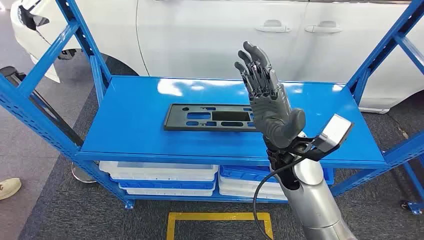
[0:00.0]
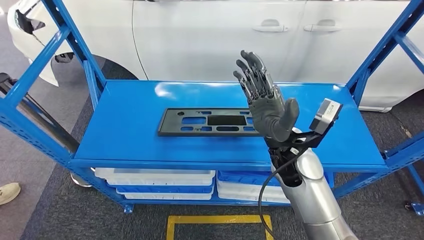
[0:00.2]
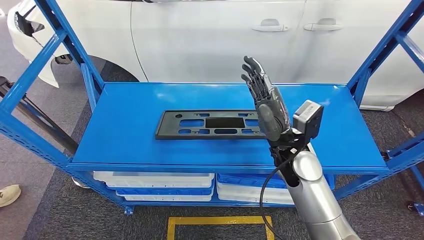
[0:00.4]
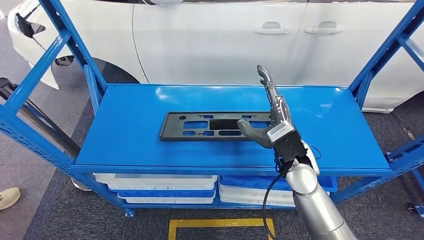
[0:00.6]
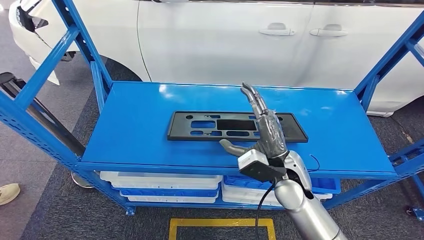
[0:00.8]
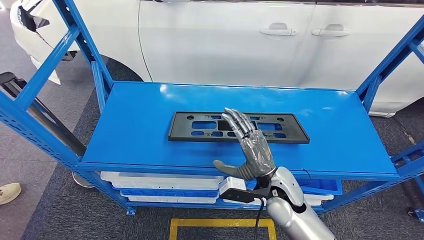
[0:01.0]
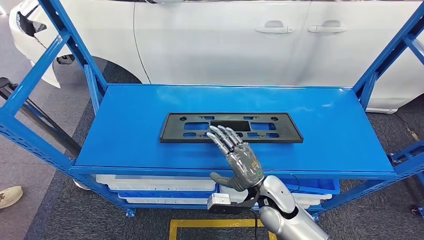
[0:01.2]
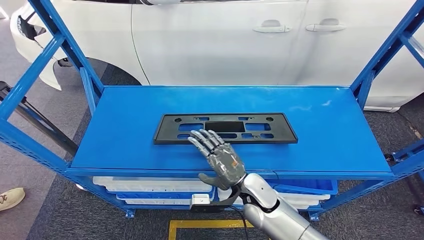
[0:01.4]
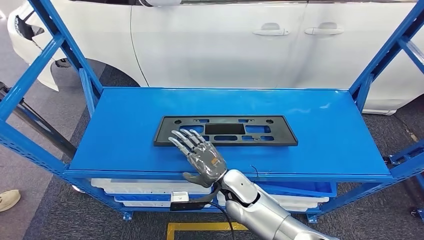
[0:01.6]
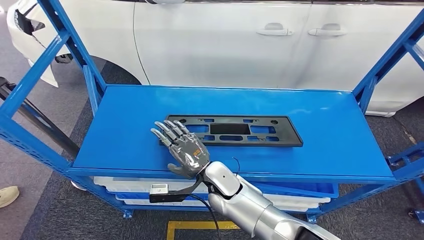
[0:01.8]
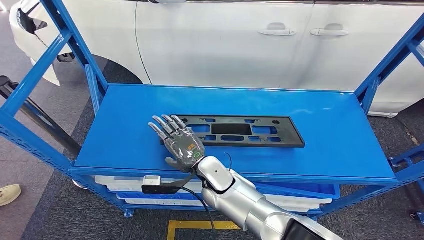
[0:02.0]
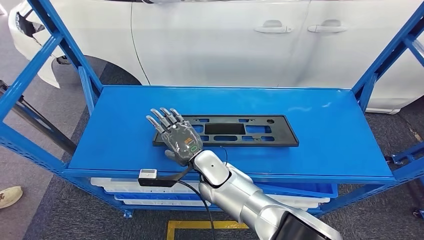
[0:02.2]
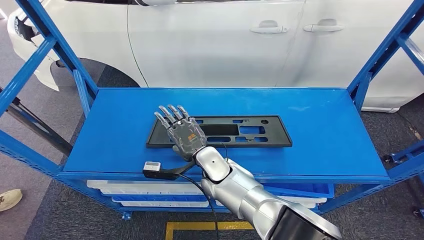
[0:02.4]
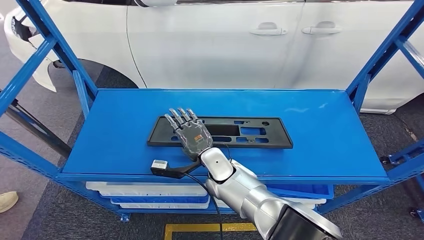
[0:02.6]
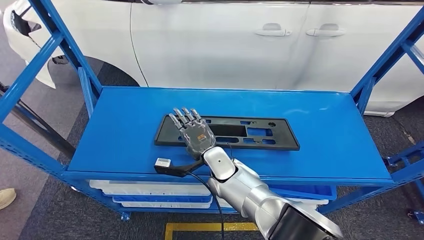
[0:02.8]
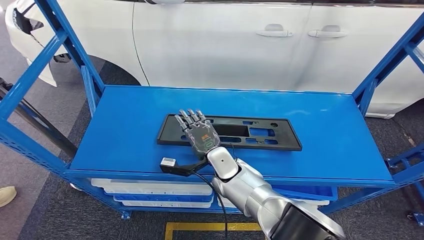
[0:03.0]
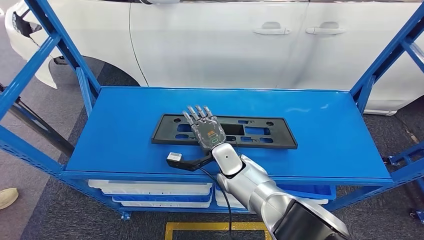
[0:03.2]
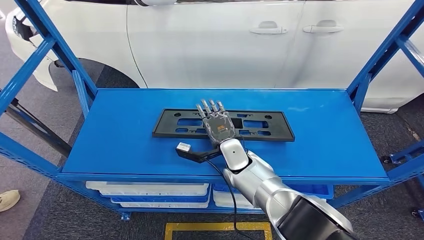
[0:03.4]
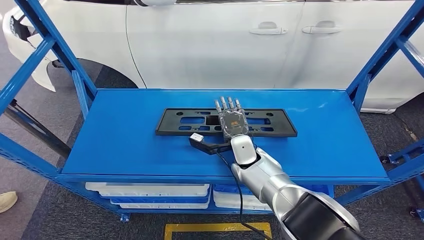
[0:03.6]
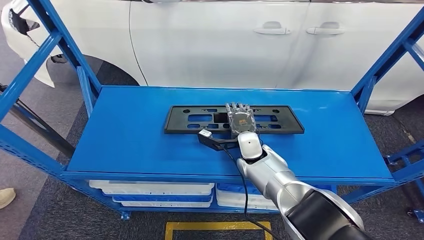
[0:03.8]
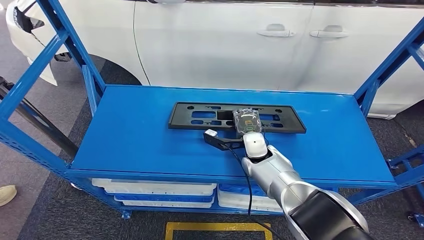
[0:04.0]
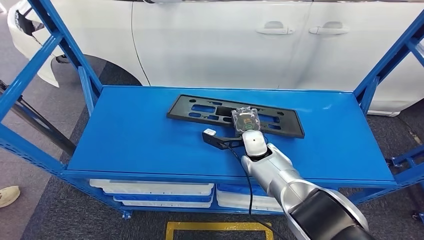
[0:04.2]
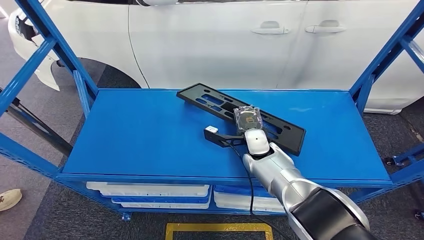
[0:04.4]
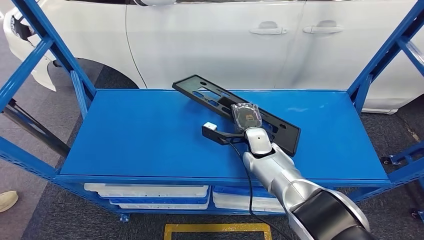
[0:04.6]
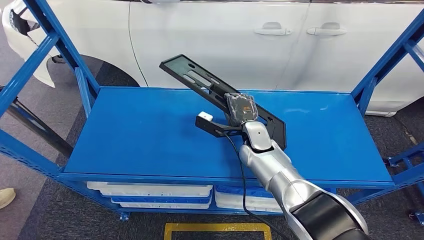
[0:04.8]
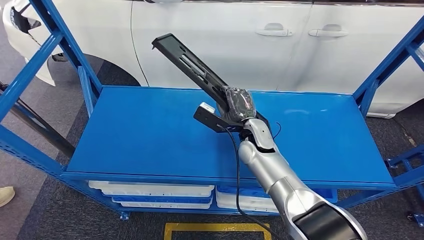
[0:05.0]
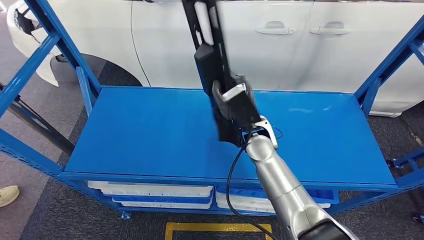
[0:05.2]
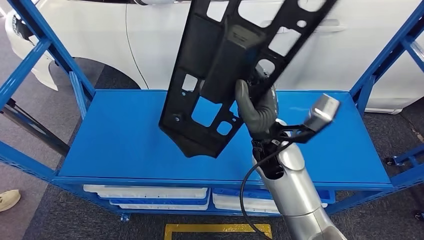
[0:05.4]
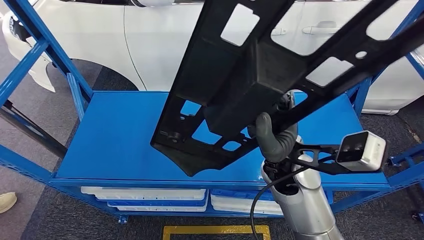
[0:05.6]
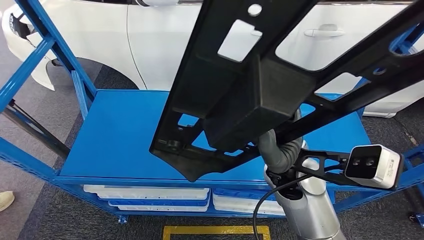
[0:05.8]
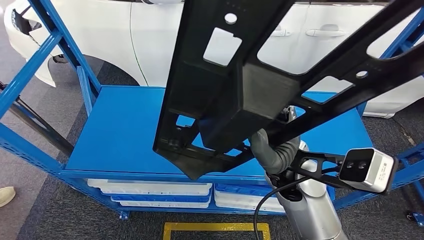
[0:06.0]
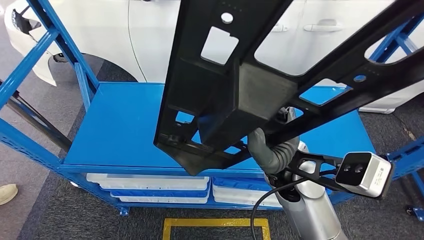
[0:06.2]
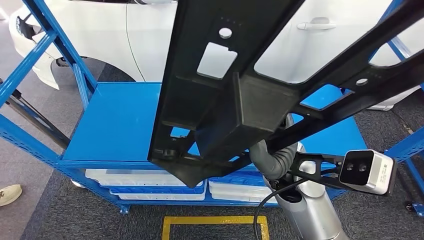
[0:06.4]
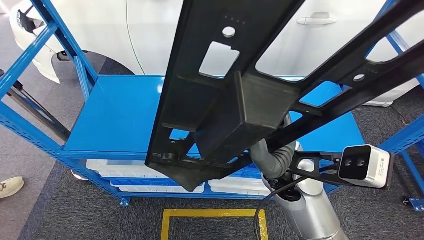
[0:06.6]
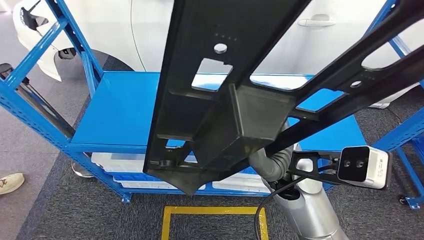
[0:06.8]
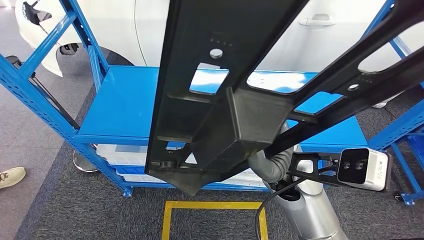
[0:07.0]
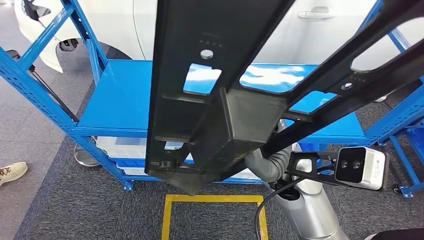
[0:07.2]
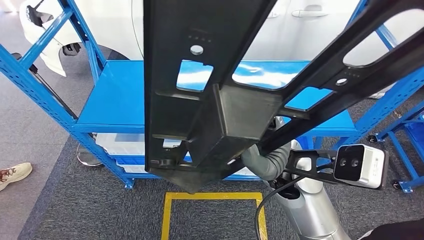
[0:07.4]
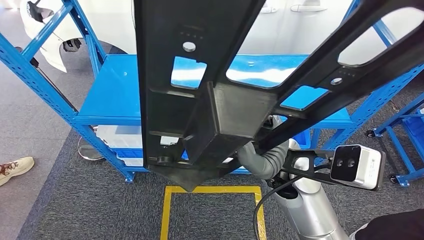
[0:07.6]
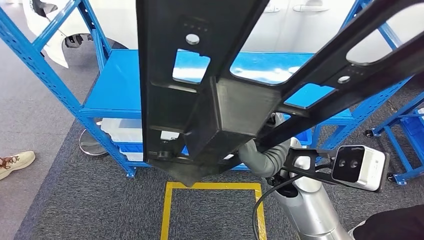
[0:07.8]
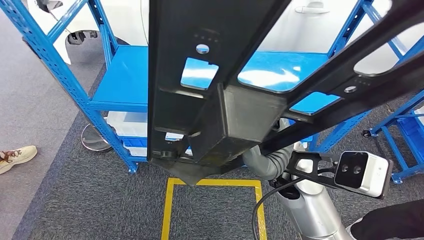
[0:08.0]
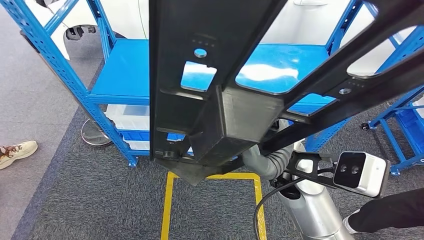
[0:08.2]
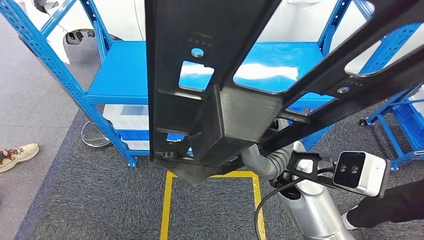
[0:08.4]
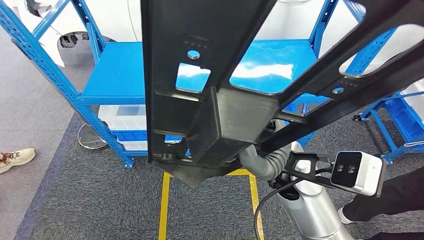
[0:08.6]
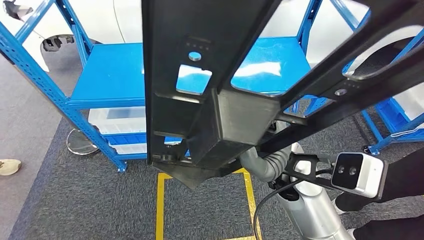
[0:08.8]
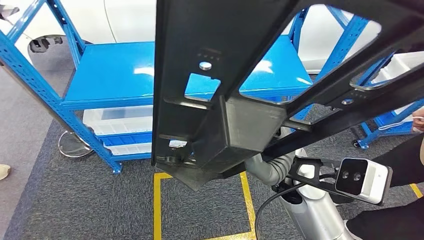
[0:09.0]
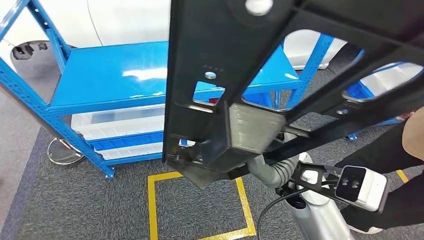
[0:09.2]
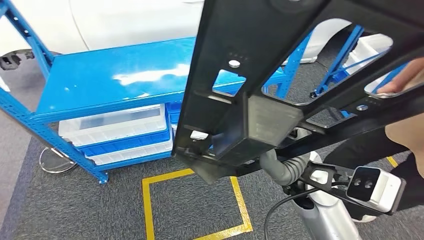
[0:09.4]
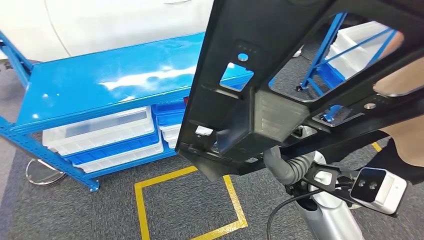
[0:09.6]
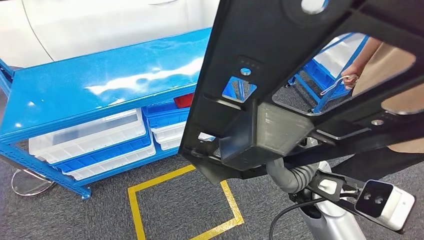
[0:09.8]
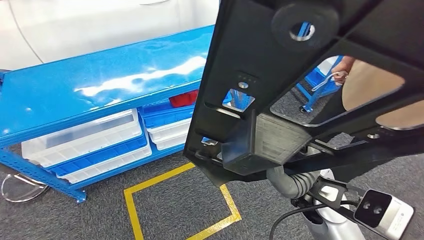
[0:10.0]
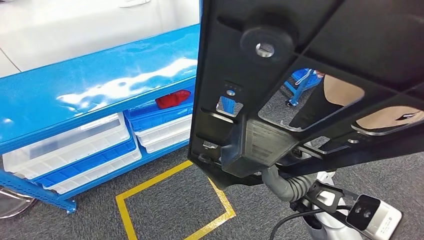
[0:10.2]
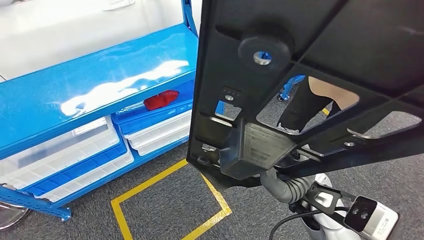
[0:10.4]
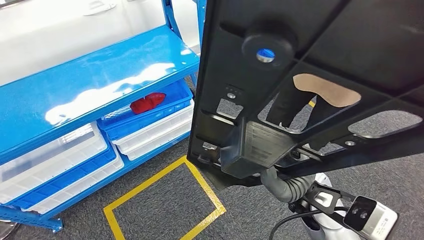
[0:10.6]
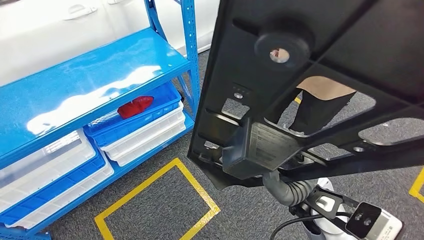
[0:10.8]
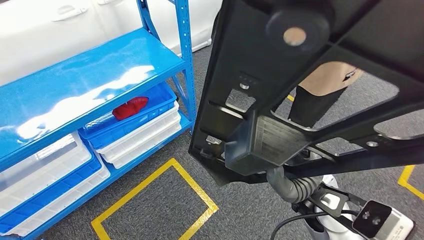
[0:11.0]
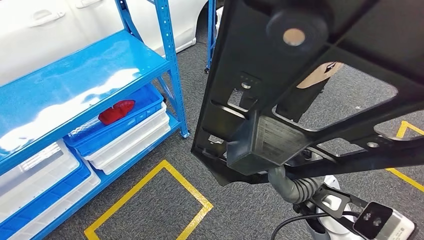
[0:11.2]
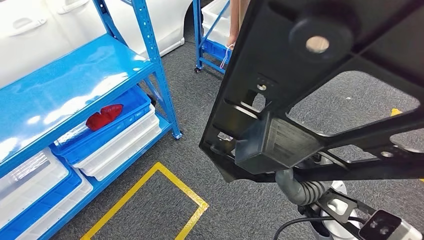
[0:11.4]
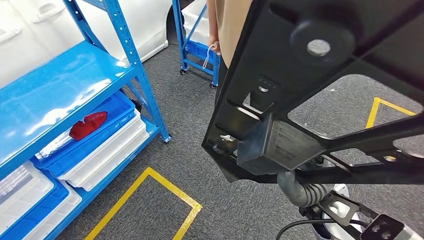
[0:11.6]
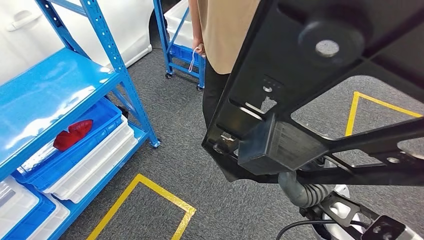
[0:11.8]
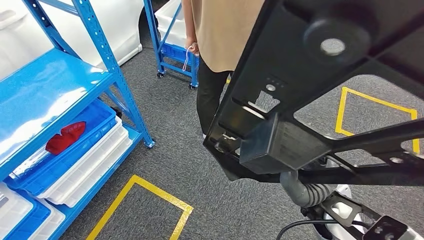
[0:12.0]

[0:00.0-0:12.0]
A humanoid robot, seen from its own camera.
Step, 0:00.0 to 0:06.4: Pick up the small component from the shelf.

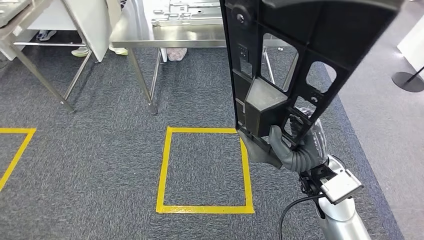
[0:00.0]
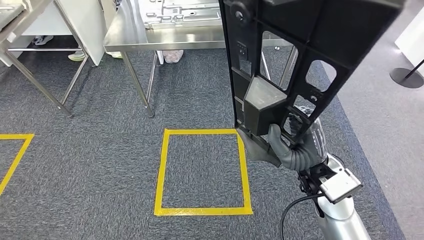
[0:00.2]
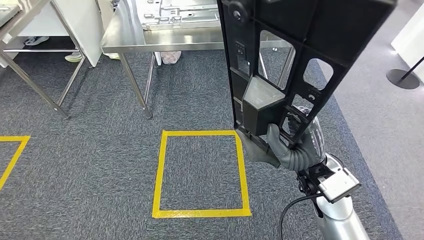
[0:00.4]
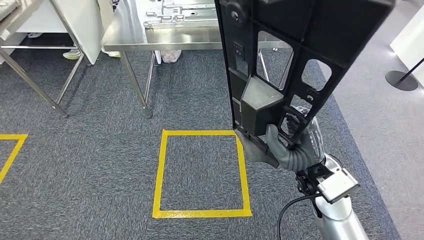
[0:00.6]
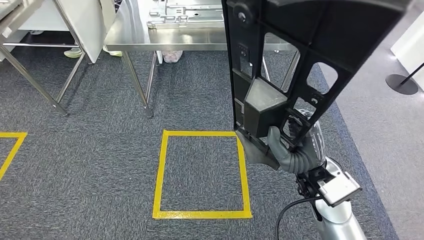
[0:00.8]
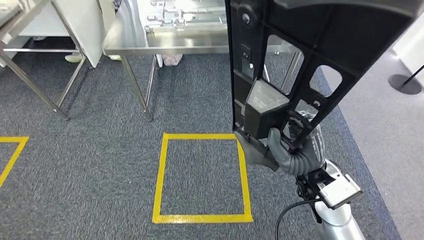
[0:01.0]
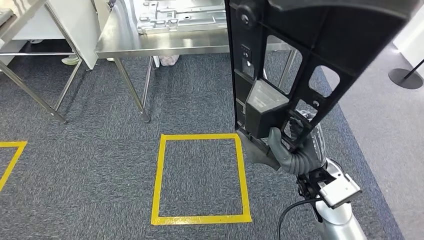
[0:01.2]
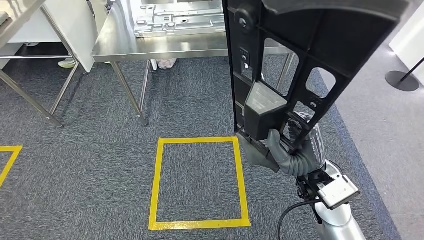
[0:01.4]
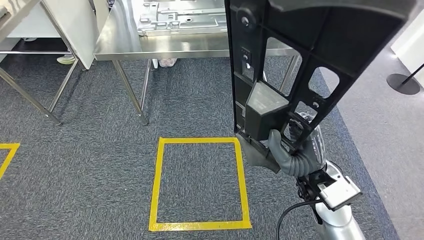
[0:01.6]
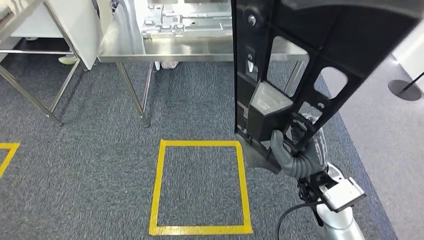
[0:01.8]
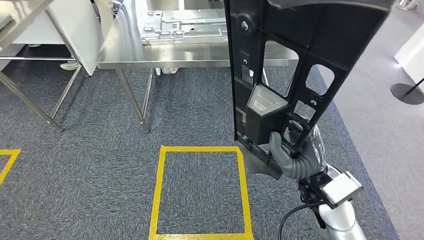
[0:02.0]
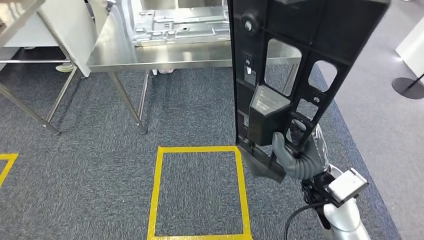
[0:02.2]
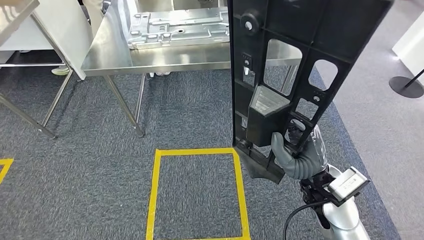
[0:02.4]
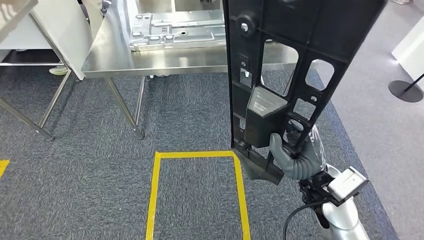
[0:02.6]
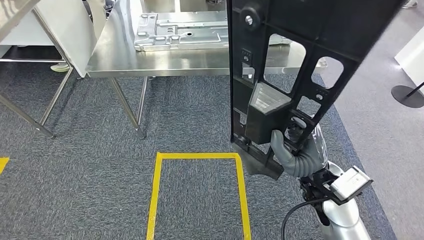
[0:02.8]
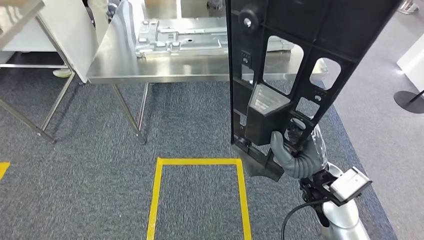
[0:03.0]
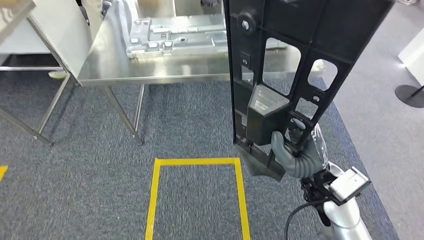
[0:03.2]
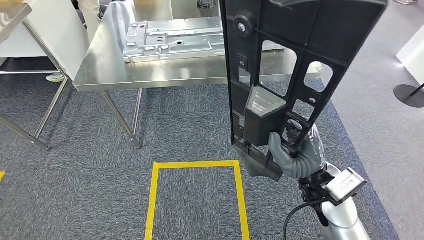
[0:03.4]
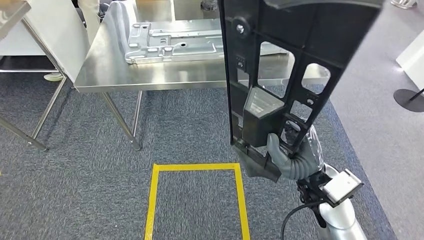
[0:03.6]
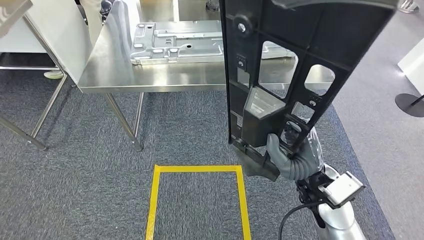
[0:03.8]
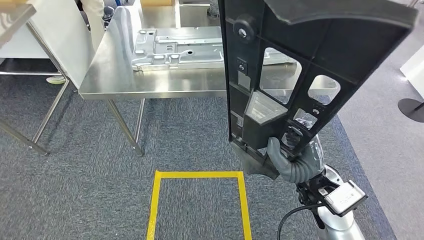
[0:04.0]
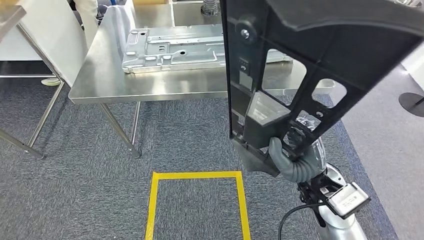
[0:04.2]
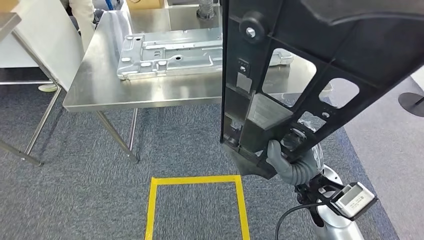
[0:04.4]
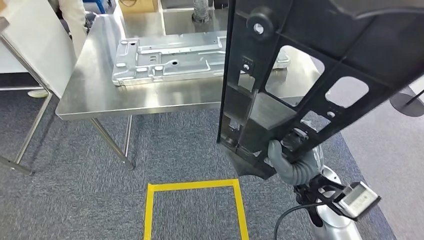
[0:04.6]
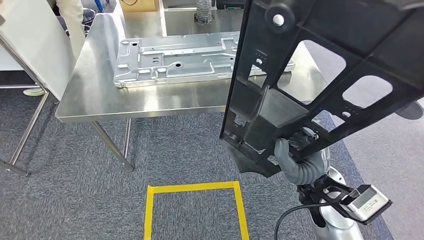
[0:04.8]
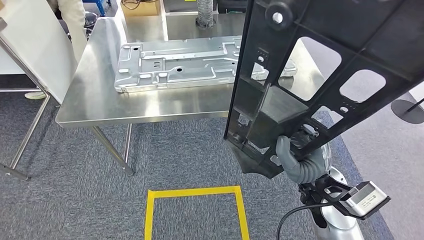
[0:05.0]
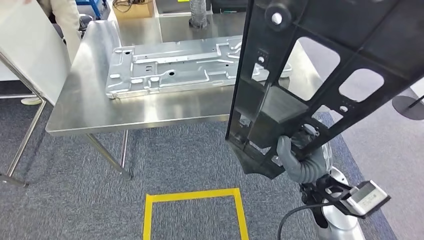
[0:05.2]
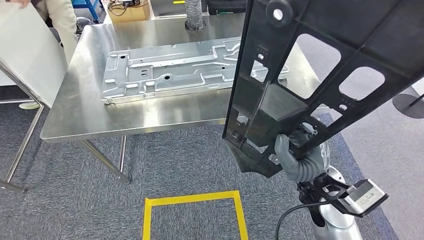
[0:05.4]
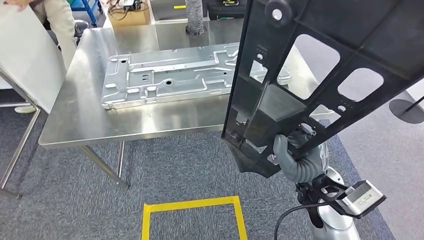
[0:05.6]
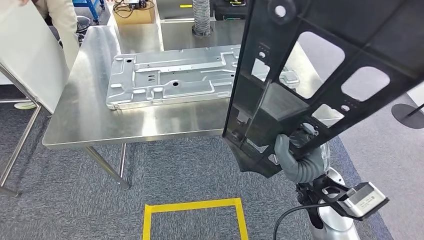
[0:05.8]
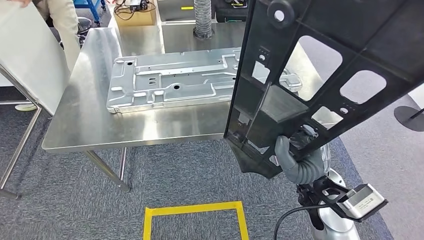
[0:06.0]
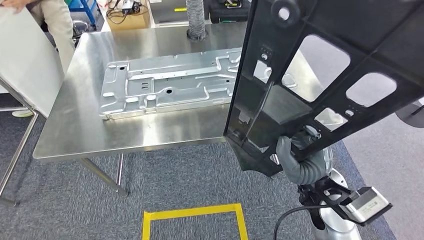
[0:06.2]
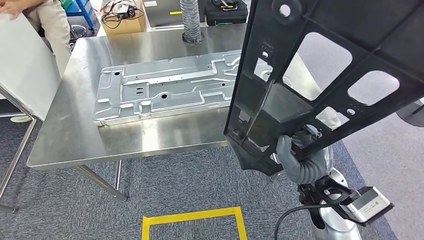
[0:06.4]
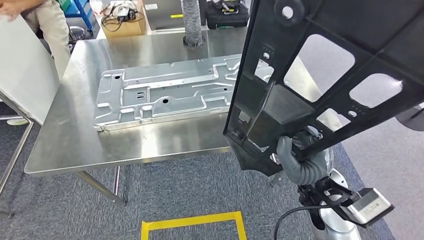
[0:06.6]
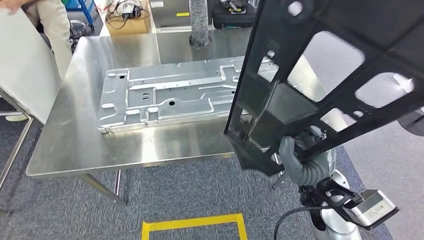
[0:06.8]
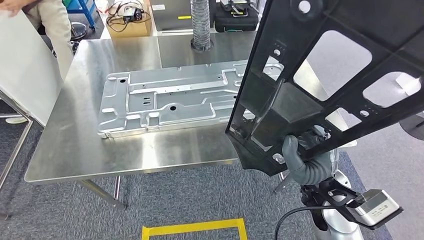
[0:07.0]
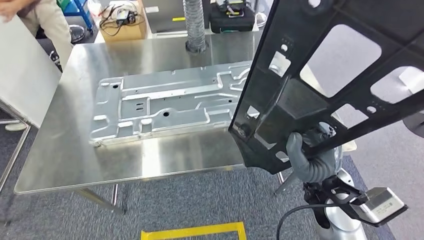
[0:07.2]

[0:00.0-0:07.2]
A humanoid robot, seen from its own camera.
Step, 0:00.0 to 0:07.0: Move the small component to the workbench.
